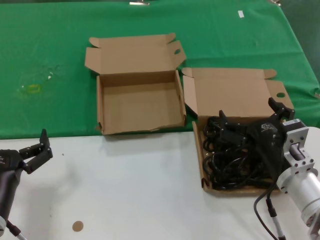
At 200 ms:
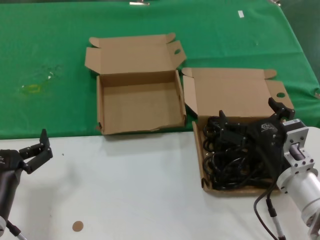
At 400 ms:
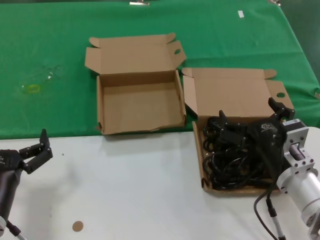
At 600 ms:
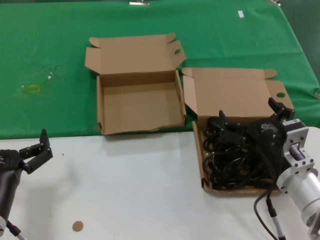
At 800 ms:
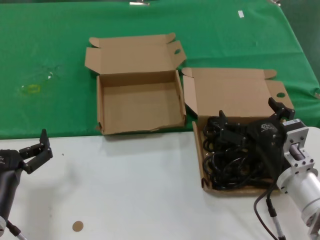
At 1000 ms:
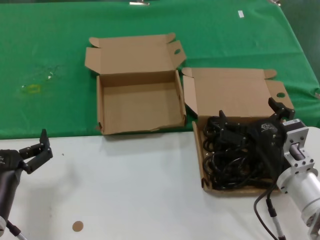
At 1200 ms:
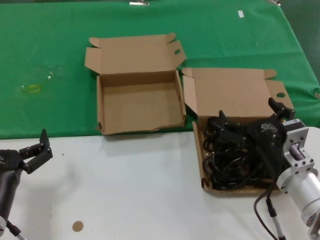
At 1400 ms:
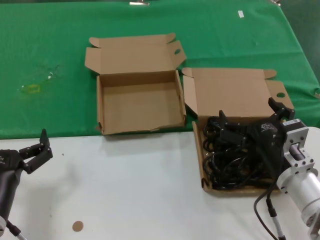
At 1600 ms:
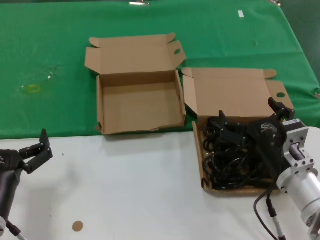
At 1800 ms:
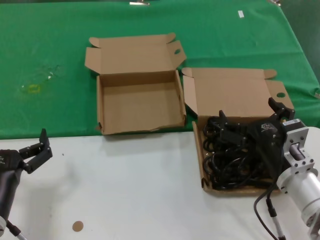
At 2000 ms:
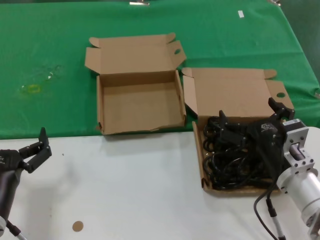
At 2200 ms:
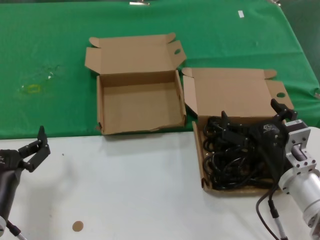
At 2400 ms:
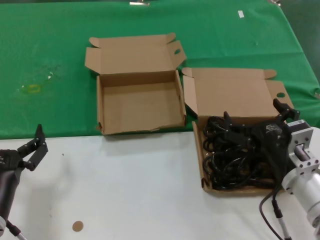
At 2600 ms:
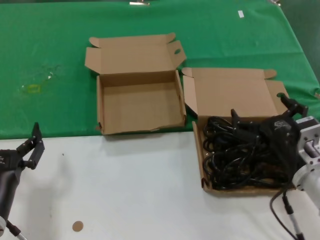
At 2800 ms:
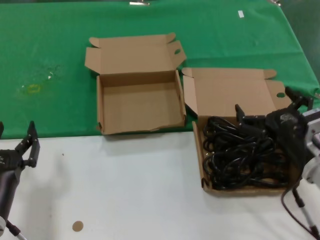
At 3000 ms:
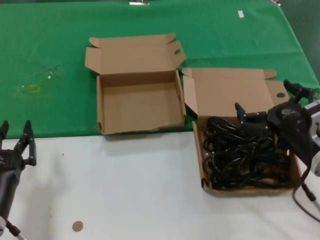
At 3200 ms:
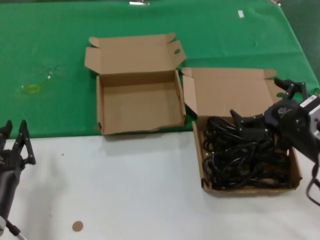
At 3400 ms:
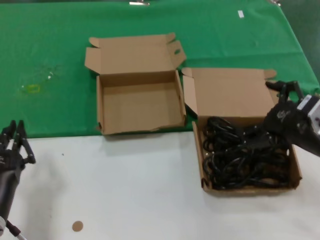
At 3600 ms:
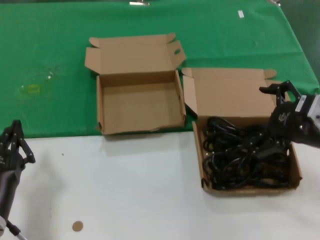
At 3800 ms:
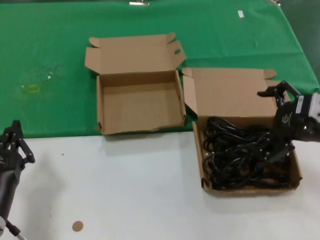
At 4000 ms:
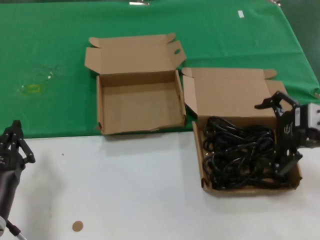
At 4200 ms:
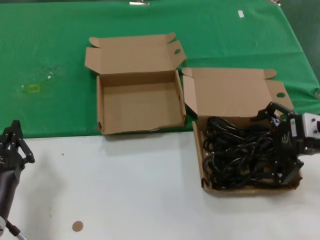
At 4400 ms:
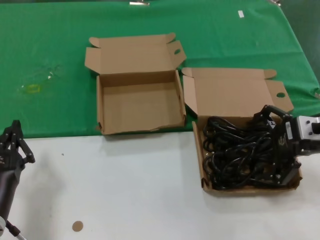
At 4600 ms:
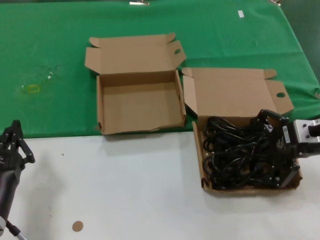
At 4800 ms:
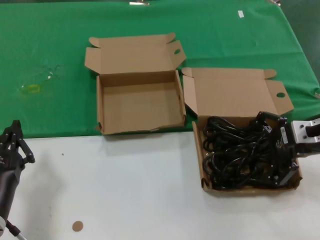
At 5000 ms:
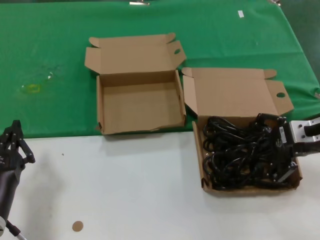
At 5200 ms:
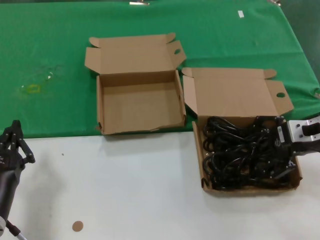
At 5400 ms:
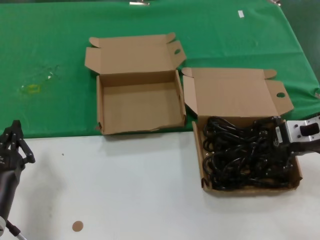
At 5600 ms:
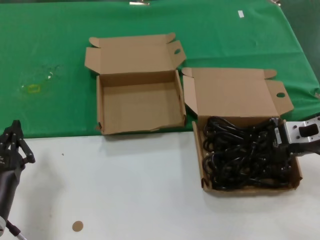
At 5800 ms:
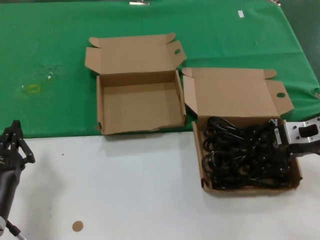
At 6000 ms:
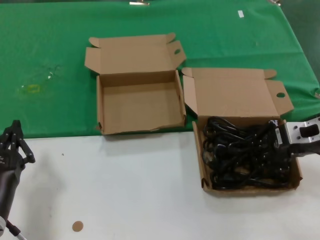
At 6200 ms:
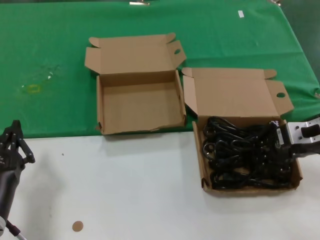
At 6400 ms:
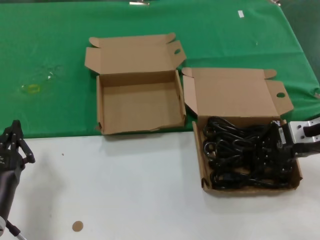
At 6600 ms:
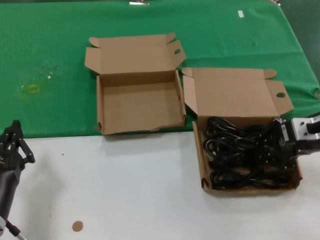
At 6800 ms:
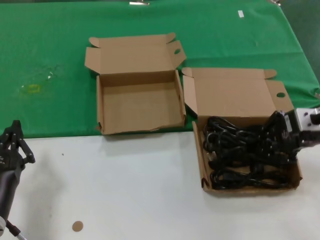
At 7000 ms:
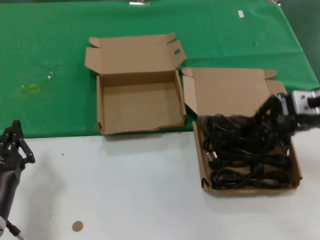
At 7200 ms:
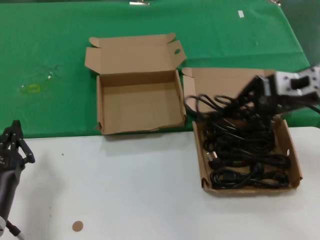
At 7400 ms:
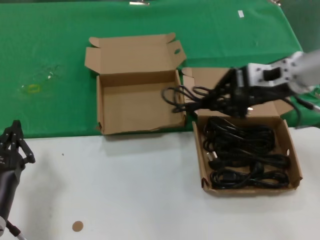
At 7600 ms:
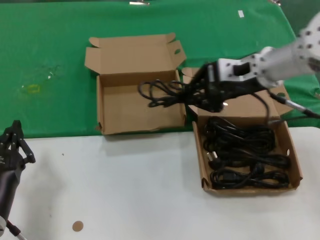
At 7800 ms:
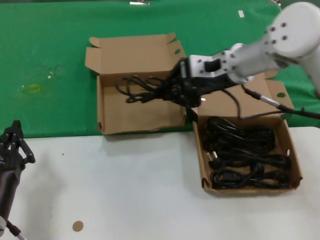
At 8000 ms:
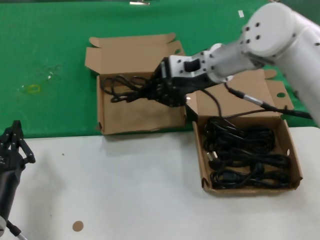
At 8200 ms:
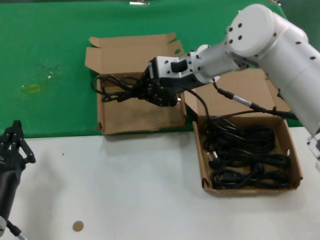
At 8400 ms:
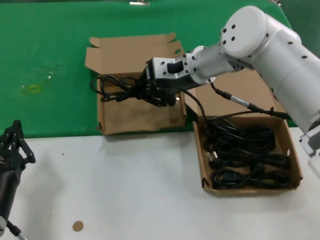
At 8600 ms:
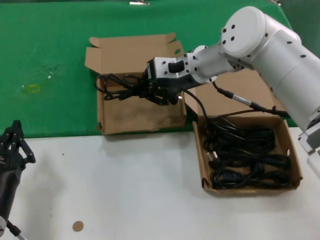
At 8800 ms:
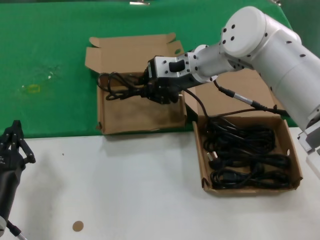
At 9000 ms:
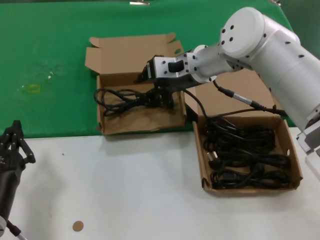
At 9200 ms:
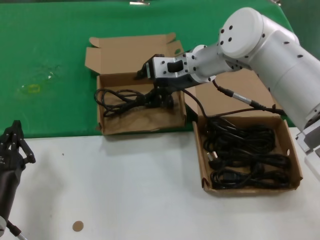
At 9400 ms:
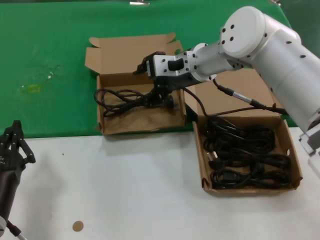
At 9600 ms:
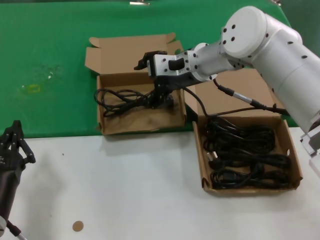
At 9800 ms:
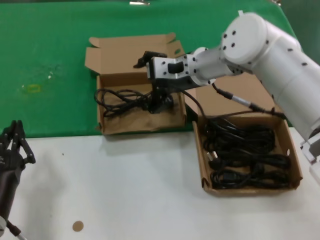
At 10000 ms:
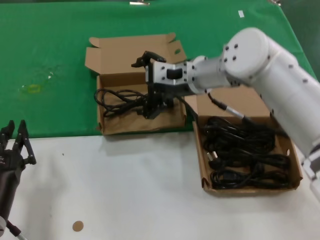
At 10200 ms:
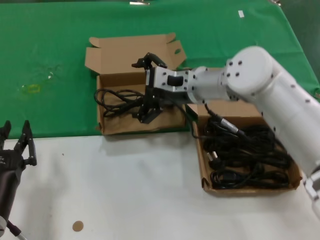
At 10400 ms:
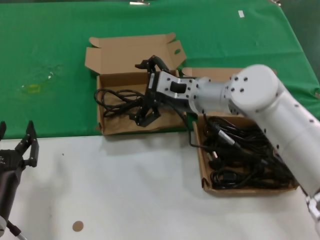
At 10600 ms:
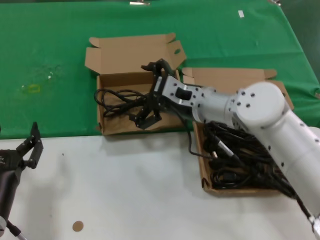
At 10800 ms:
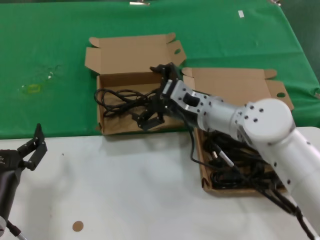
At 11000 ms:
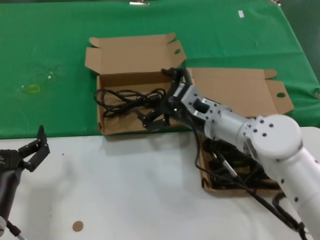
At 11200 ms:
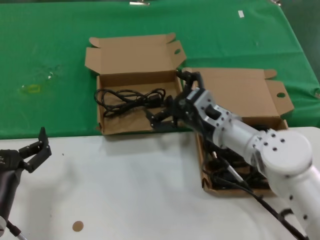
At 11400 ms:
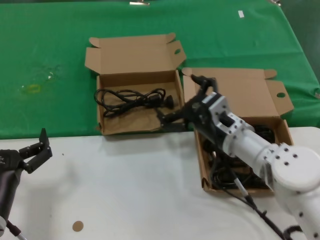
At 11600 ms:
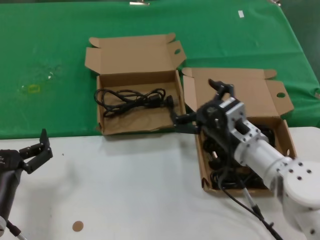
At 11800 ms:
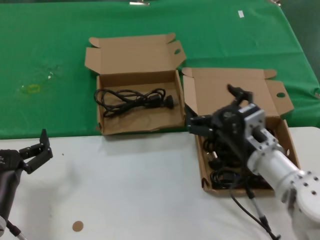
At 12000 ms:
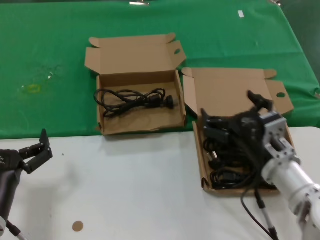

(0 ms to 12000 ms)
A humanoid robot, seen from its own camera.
Task of the whole recording: take the parts from the box containing them and put them into an empty box.
Step, 0 ms - 6000 ms: Grasp the data cable.
Step, 6200 ms - 9000 ms: Place the data cable in the another box.
0 ms - 1600 ms: Neither hand changes place.
1600 ms - 3000 ms: The right hand is displaced to the right by approximately 5 cm.
3000 ms - 4400 ms: The right hand goes roughly 15 cm upward, forward and to the right.
4400 ms - 6000 ms: The hands move only a little.
6000 ms - 7600 ms: The right hand goes roughly 15 cm to the left, upward and forward.
7600 ms - 9000 ms: The right hand shifts some 15 cm to the left and forward.
9000 ms - 10400 ms: The right hand shifts about 5 cm downward.
10400 ms - 12000 ms: The right hand goes about 20 cm backward, downward and to the right.

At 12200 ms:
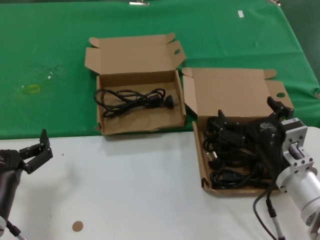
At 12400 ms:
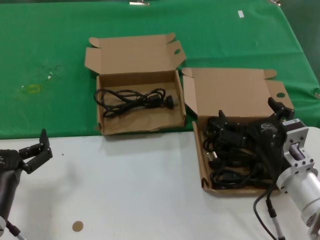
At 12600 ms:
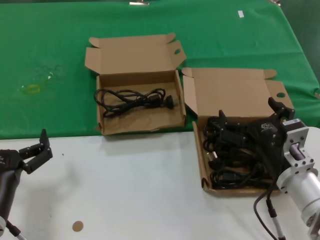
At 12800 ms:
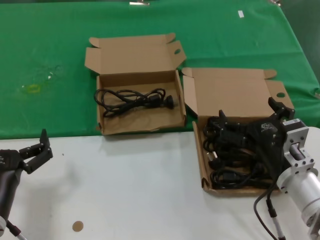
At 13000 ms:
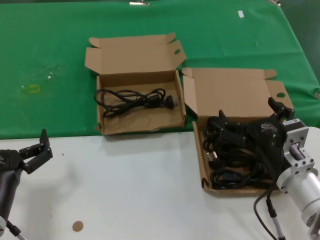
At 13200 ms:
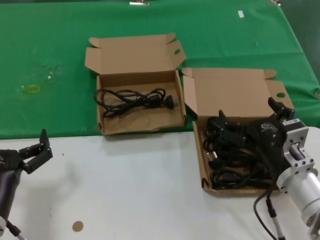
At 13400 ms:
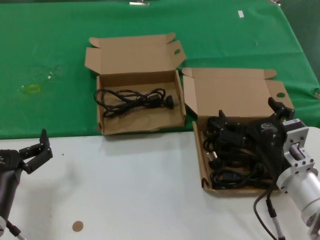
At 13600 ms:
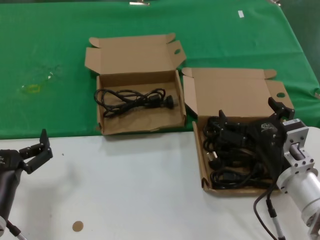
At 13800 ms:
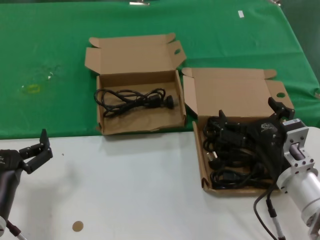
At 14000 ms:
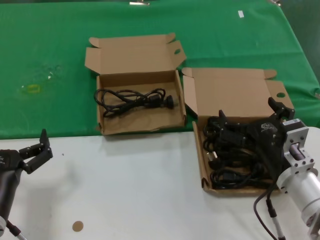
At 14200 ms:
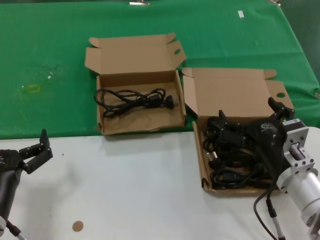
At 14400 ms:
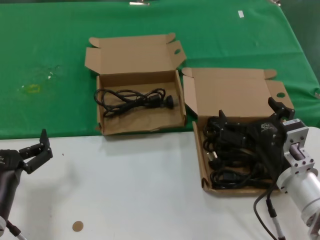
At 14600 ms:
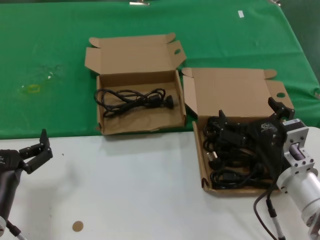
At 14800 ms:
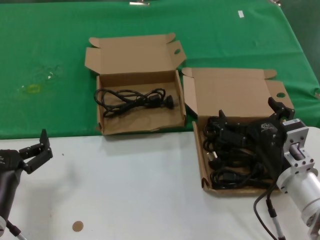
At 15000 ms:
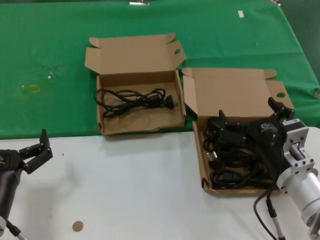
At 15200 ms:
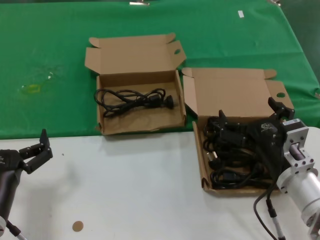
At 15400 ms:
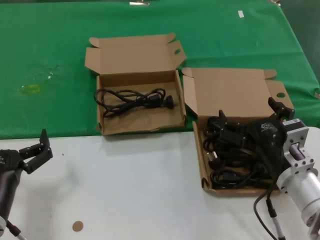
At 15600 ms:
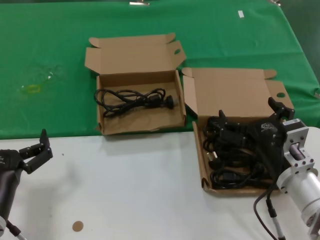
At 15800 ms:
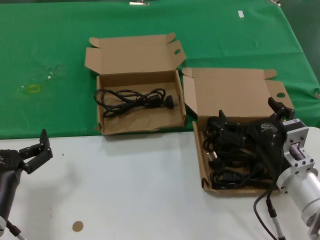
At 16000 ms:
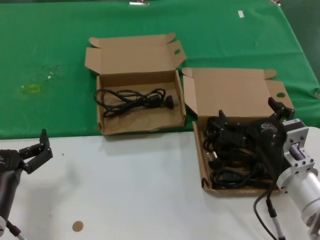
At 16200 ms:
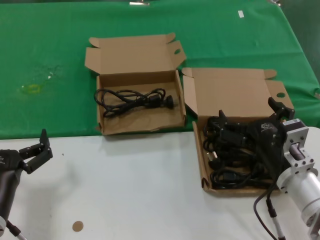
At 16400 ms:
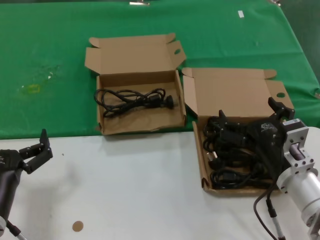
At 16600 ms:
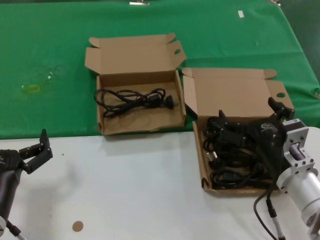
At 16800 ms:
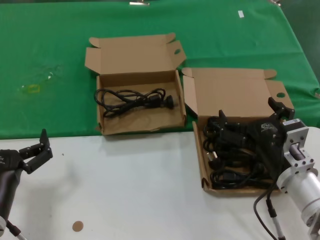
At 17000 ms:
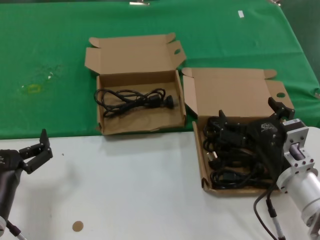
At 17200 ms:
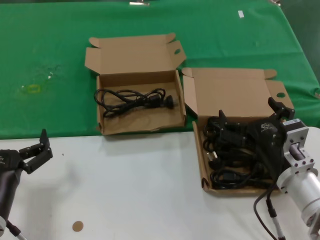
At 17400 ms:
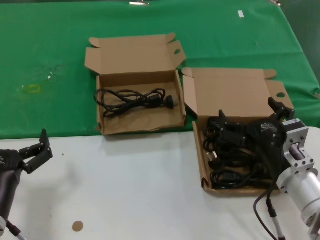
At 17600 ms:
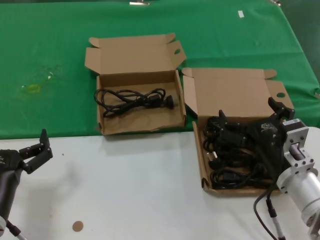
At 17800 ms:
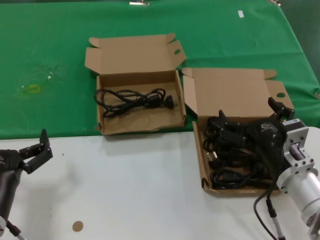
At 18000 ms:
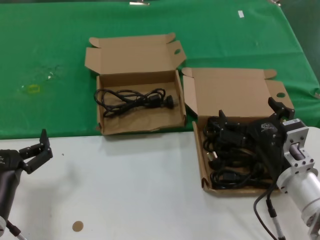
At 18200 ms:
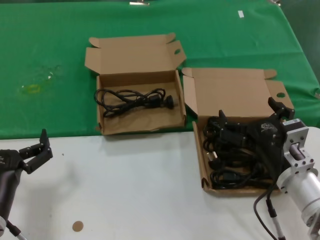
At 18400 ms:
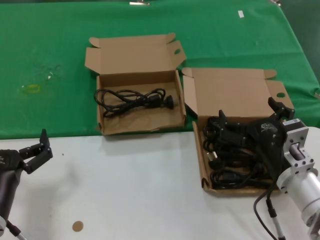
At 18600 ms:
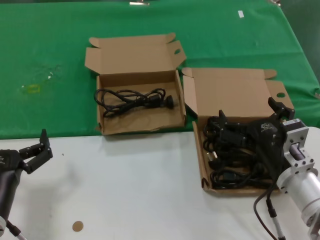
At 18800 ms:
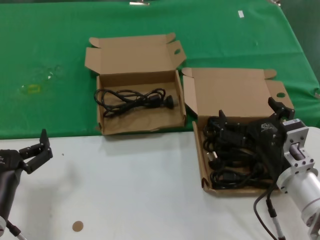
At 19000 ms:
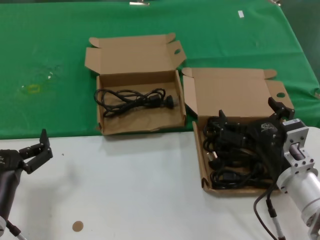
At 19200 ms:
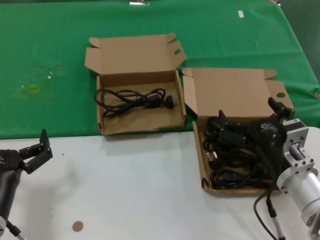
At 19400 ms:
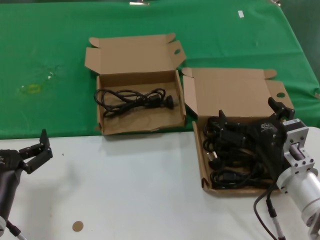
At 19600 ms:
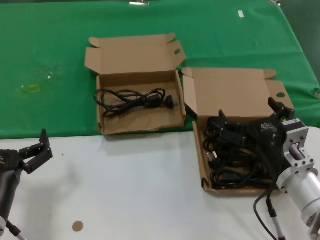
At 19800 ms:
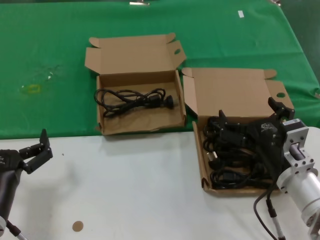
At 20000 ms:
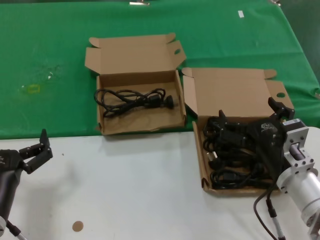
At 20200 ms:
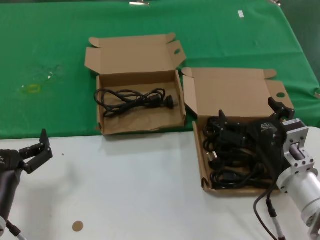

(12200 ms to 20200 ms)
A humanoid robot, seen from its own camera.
Task of the whole recording: take the parts from the box containing them and put them into an empty box.
12200 ms - 20200 ms: The two hands keep their place.
